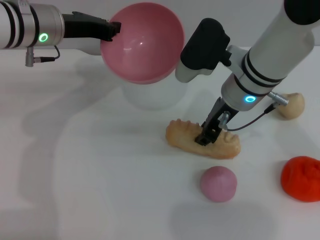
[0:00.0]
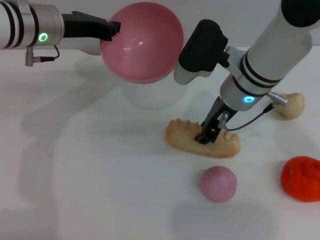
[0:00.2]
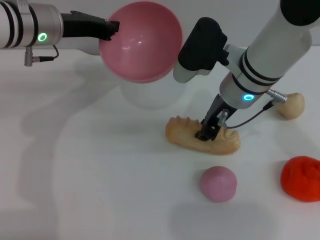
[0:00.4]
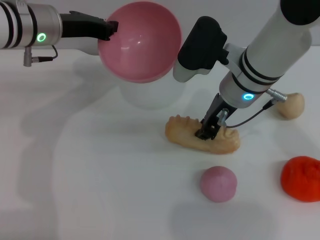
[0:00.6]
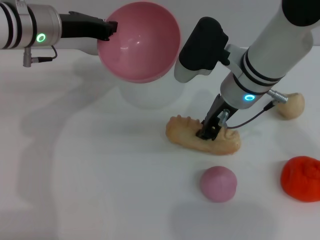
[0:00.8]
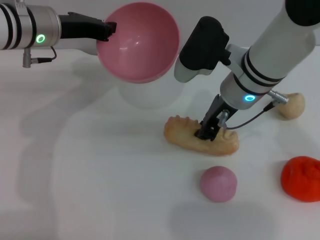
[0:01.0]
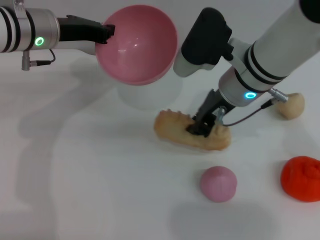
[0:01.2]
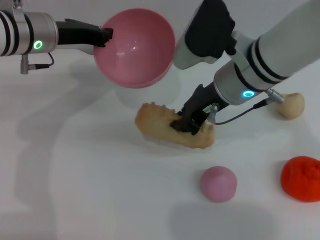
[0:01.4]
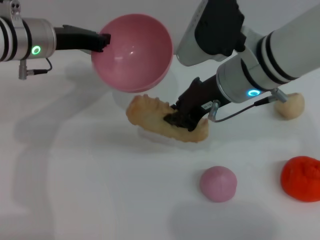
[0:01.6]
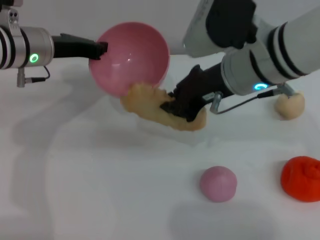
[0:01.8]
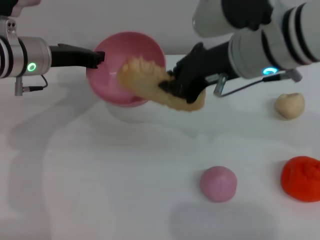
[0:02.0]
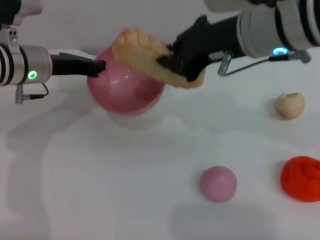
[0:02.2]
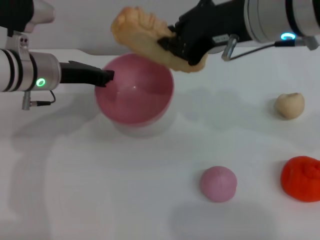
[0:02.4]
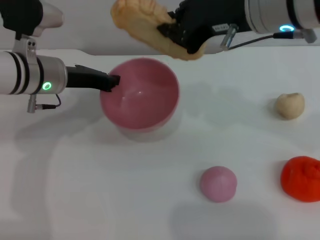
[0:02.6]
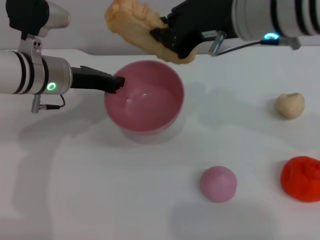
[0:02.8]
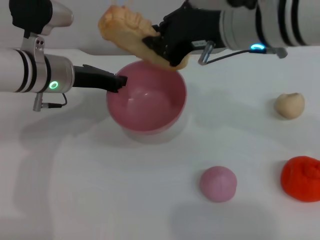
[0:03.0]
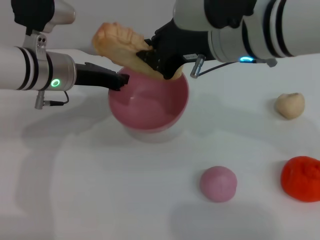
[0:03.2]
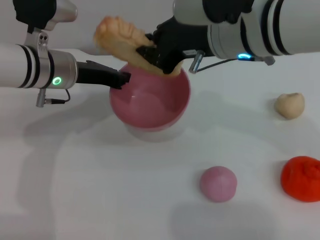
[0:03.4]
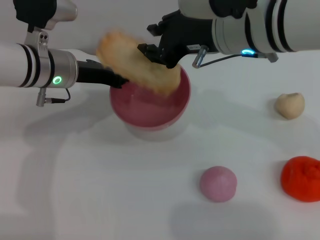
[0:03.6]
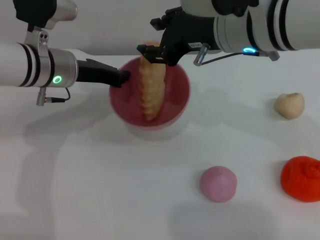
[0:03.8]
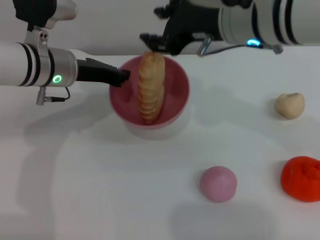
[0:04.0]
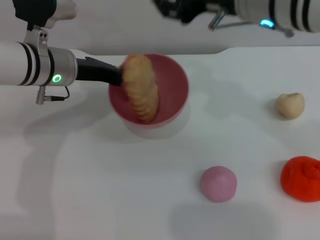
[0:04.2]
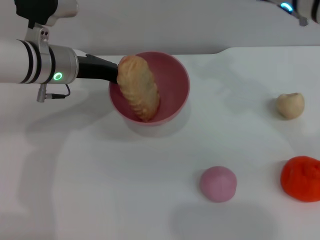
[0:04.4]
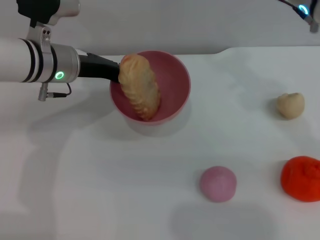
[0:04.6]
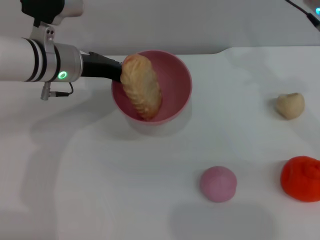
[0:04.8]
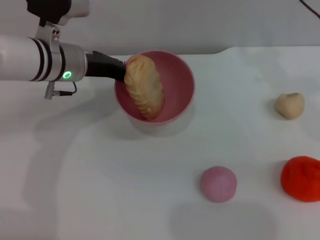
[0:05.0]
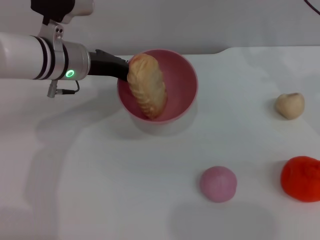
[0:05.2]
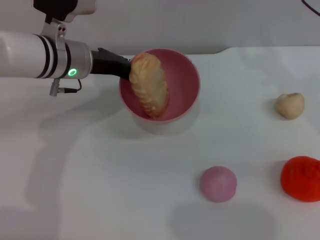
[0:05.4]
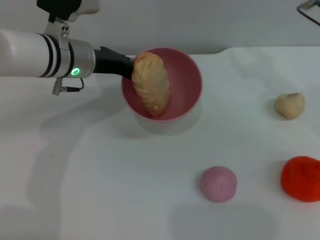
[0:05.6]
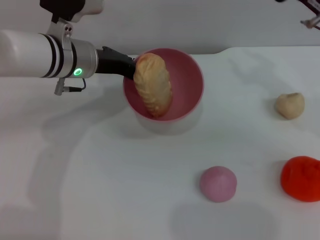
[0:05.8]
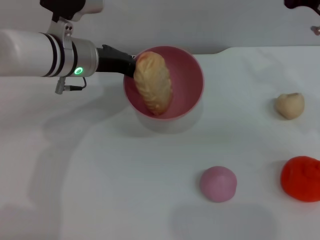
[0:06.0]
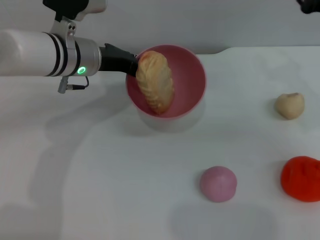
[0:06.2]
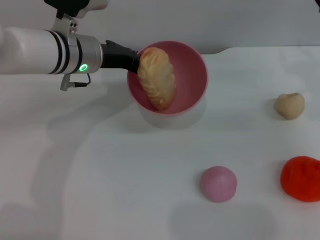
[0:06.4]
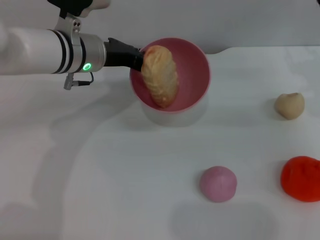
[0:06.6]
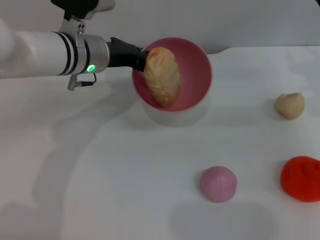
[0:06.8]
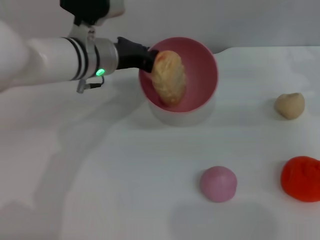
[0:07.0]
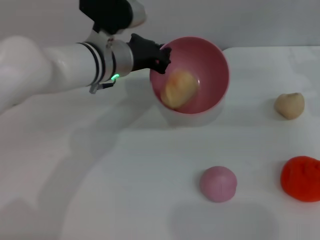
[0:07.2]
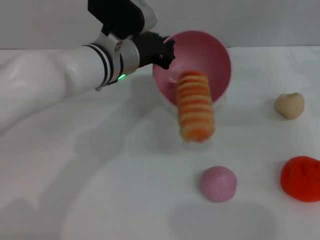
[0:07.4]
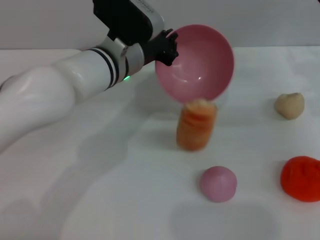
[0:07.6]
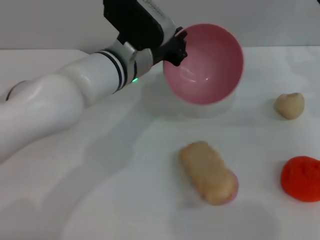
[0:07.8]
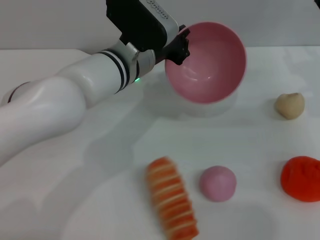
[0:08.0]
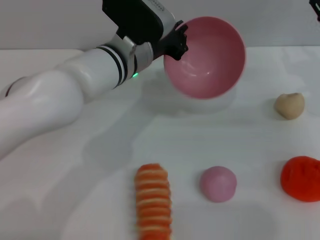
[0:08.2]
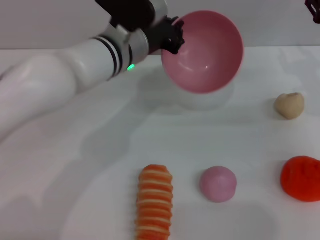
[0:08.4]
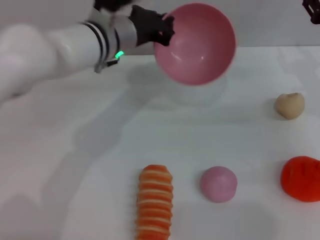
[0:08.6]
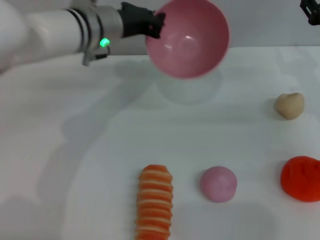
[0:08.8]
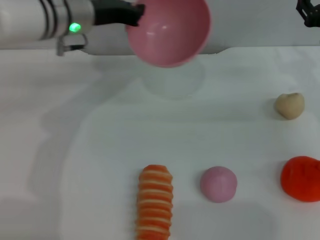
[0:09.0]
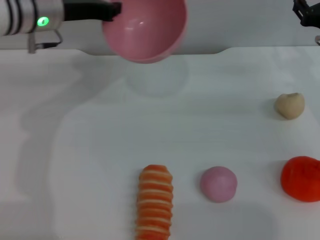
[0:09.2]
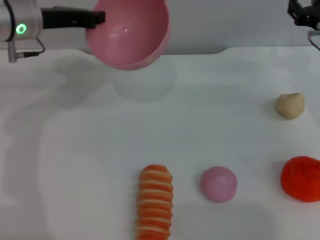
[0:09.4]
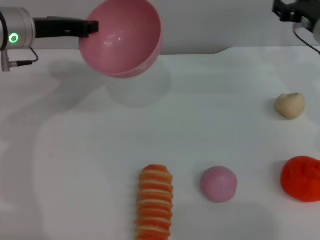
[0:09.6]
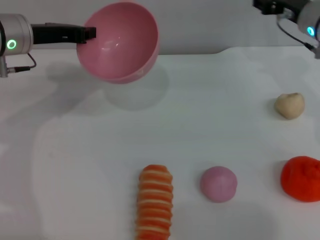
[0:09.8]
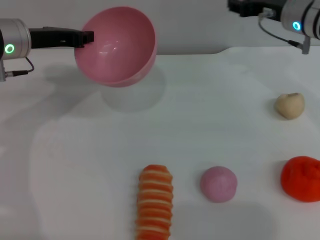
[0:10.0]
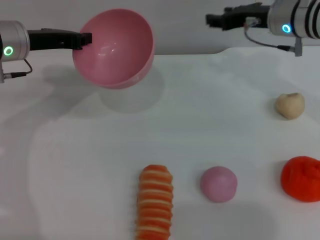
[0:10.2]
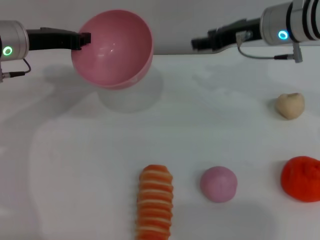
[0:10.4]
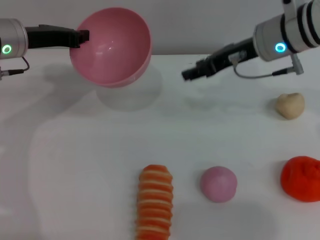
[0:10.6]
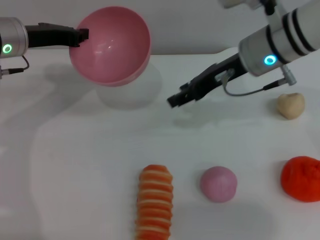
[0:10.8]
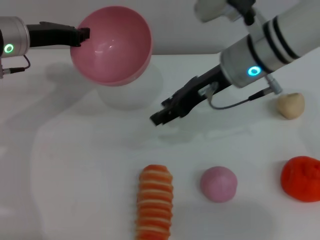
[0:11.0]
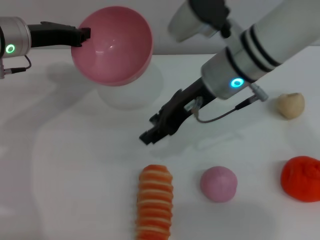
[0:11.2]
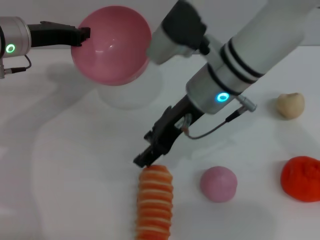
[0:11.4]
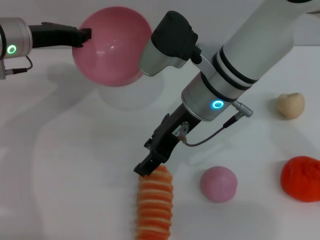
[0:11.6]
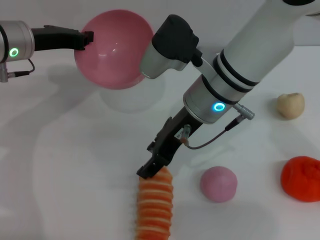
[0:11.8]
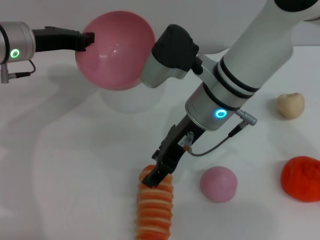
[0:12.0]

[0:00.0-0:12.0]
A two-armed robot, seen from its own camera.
Task of the whole recording: put the bread into the pink bowl and pour it out repeatedly.
Step, 0:01.6 to 0:04.0: Place the bread into the bowl.
Step, 0:04.2 to 0:08.2: Pour the bread out of the bowl.
0:00.0 to 0:01.6: The right gripper shifts by roughly 5 cm, and closes.
0:01.6 to 0:03.0: The right gripper heads upward, covering approximately 5 cm.
0:03.0 to 0:04.4: The right gripper opens up.
0:04.4 to 0:06.0: The right gripper heads to the right and downward, covering approximately 15 cm.
0:06.0 to 0:07.6: The left gripper goes about 5 cm to the right, while the right gripper ends up some 5 cm from where it was.
0:07.6 to 0:09.0: The left gripper shifts roughly 10 cm to the left and upward.
0:09.0 to 0:10.4: The right gripper is displaced to the left and upward by some 15 cm. The left gripper moves to the left, roughly 10 cm.
0:10.4 to 0:12.0: The right gripper moves to the left and backward, approximately 15 cm.

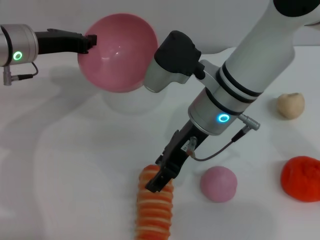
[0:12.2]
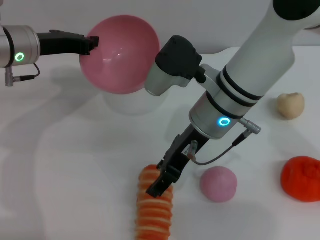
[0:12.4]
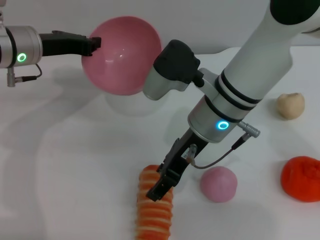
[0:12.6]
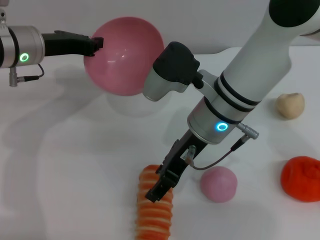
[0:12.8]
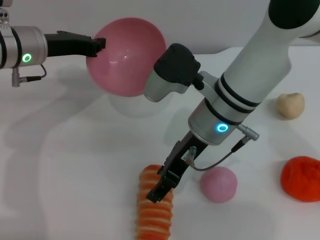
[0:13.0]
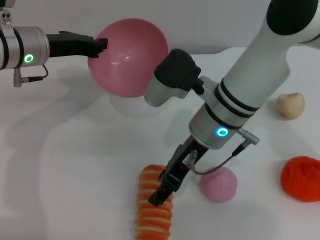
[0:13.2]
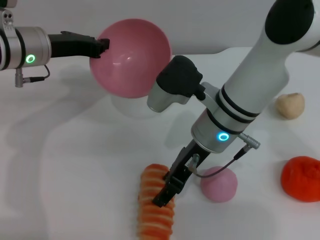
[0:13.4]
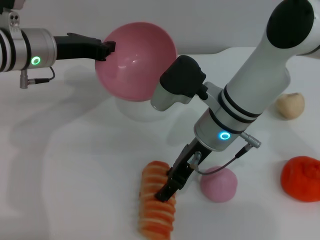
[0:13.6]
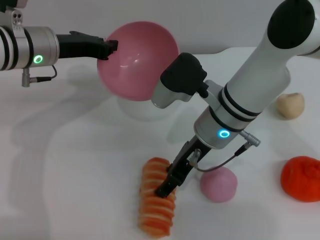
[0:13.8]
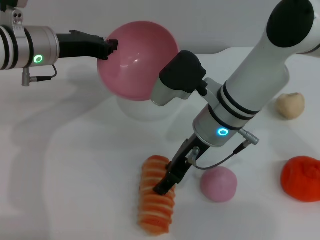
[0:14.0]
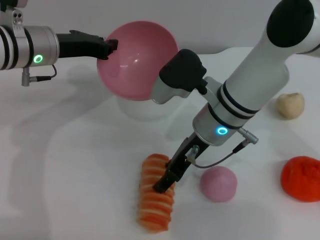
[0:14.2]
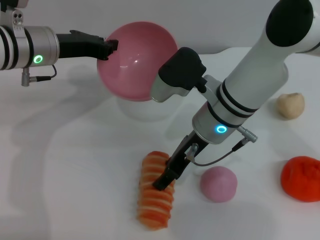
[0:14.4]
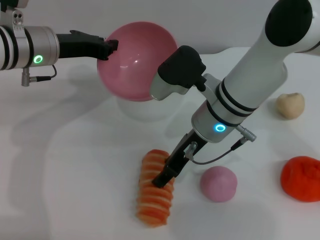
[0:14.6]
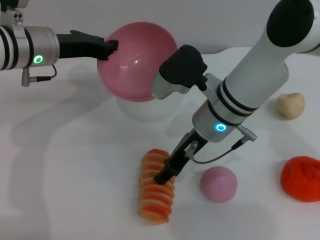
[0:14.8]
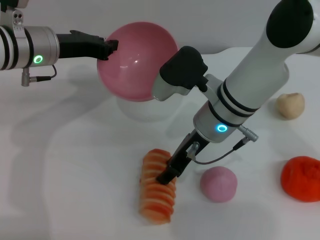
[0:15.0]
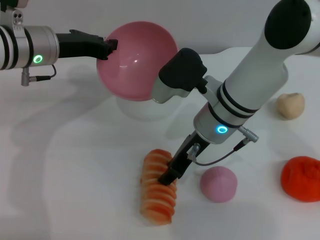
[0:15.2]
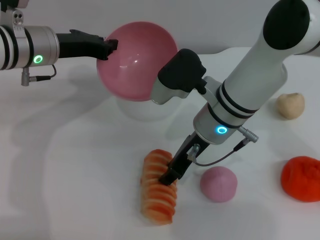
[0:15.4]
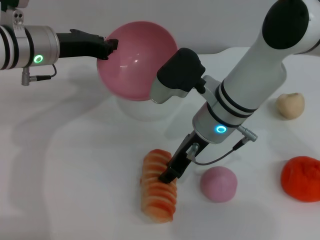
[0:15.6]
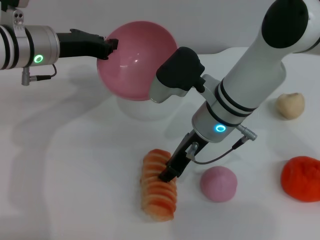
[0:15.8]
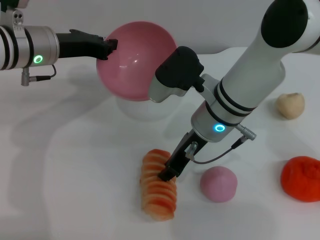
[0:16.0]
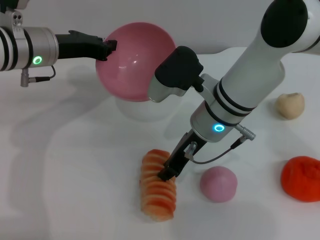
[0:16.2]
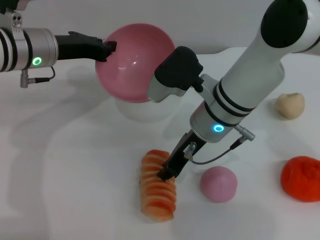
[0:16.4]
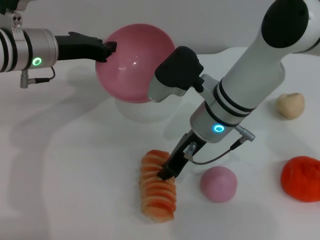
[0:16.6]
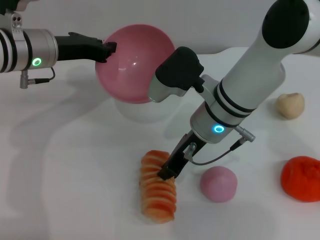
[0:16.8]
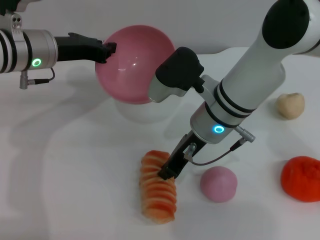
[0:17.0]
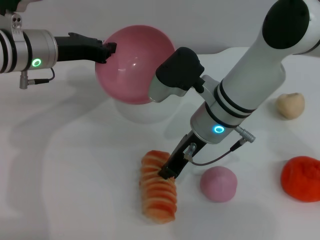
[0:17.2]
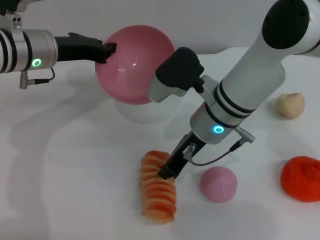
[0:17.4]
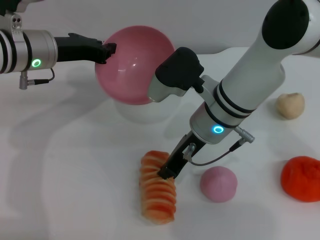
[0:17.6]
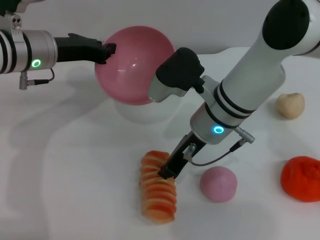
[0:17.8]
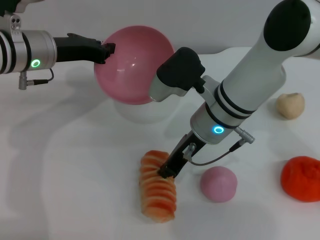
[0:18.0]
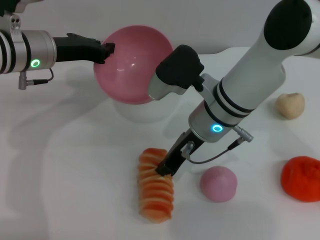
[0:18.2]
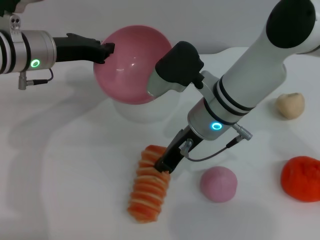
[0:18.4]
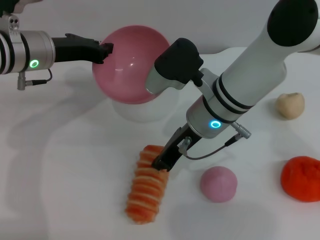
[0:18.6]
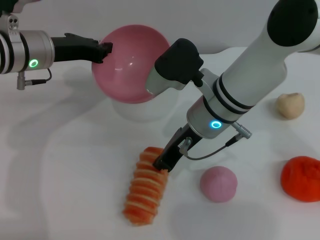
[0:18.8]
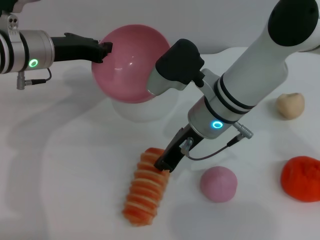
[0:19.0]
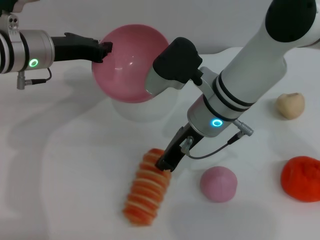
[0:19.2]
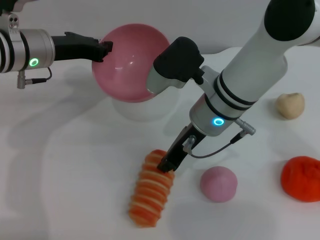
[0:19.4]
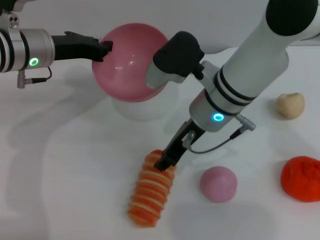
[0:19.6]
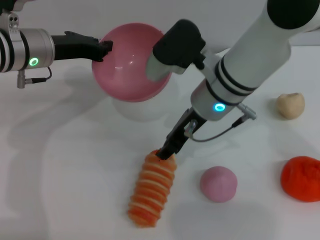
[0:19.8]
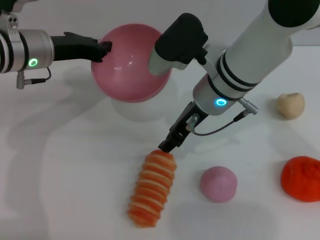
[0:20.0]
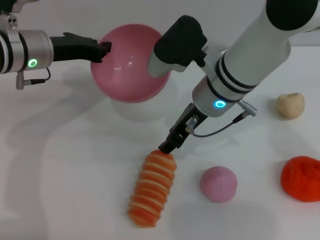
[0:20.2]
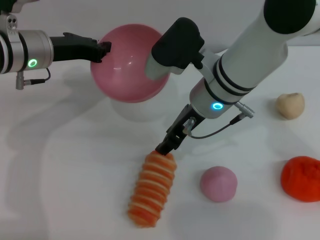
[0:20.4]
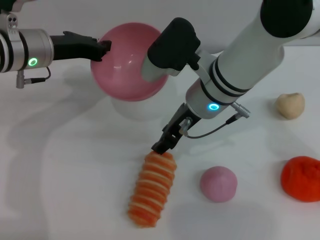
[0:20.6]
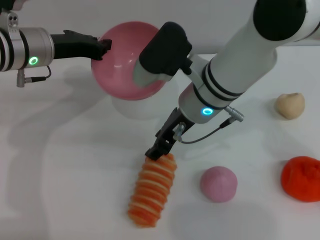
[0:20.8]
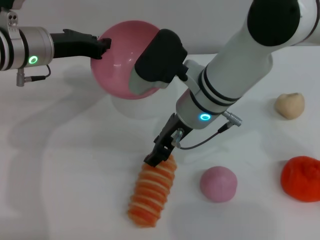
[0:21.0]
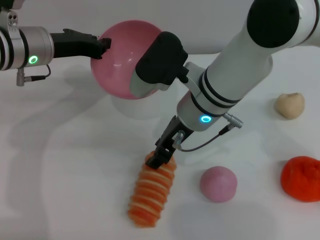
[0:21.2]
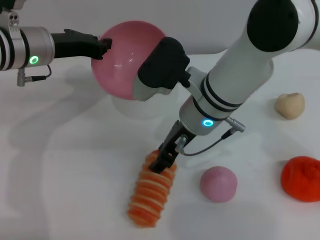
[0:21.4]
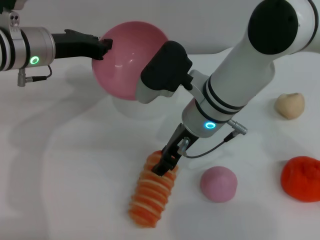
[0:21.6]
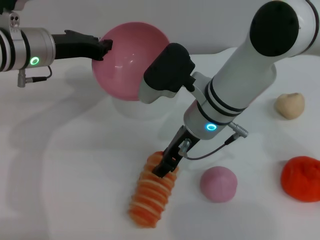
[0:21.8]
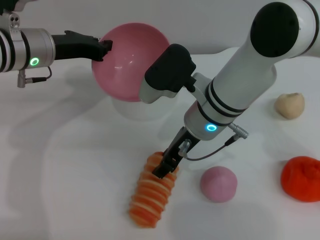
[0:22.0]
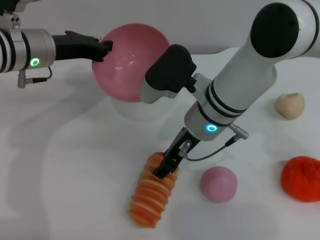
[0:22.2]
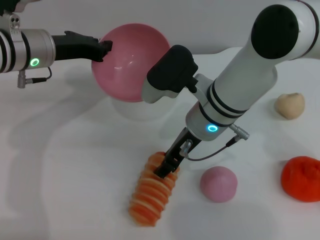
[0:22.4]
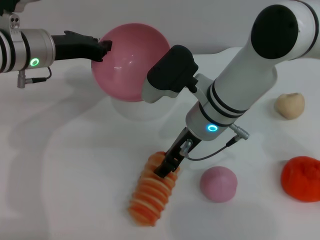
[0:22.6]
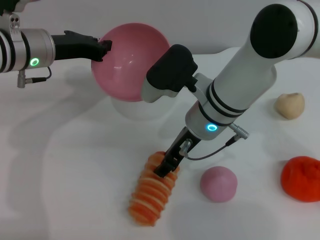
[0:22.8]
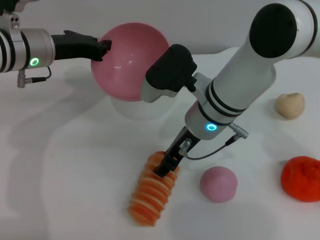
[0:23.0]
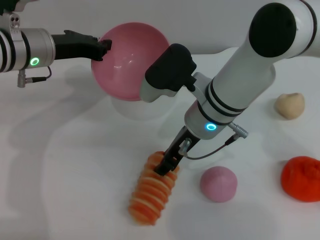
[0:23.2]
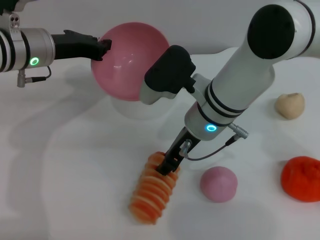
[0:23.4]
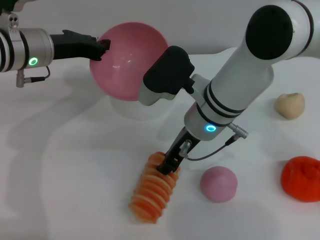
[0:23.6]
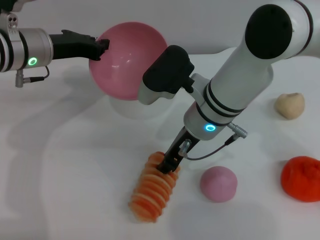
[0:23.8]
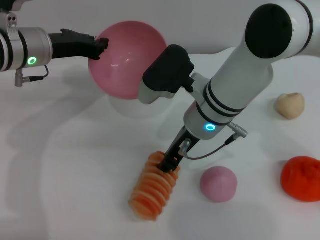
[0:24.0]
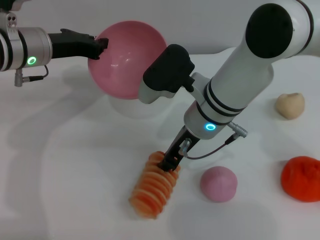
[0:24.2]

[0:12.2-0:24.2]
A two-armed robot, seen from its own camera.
Task of the whole recording: put the bread into the pink bowl and pour it out repeatedly.
0:13.8 to 0:15.2: Both grippers stay about where they are.
0:15.2 to 0:16.6: The right gripper closes.
0:16.6 to 0:18.2: Both grippers stay about where they are.
0:18.2 to 0:19.8: The right gripper opens.
0:19.8 to 0:22.6: The grippers stay close to where they were, moving slightly.
0:22.6 to 0:24.2: The right gripper closes its fingers.
